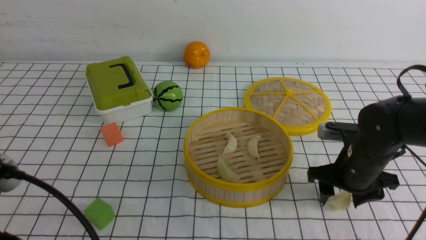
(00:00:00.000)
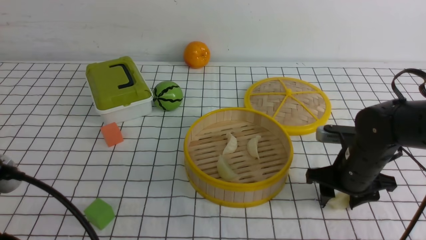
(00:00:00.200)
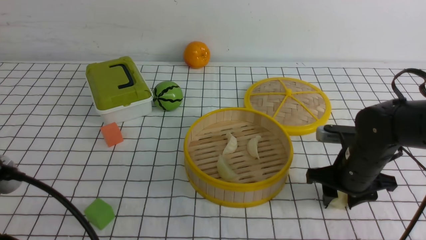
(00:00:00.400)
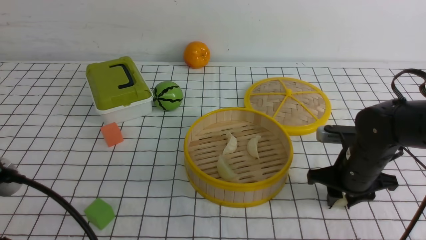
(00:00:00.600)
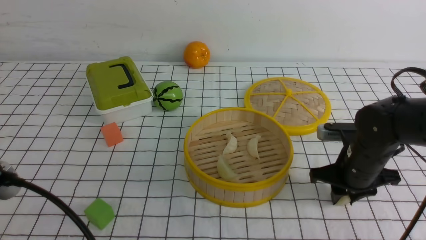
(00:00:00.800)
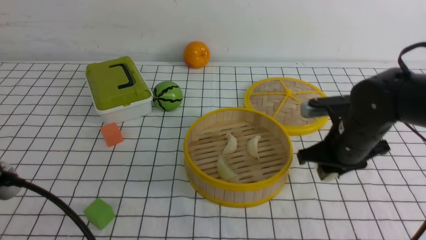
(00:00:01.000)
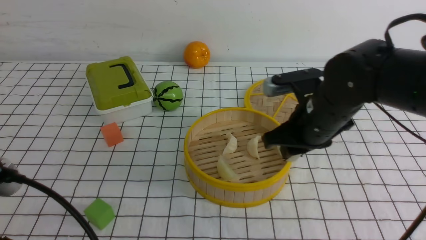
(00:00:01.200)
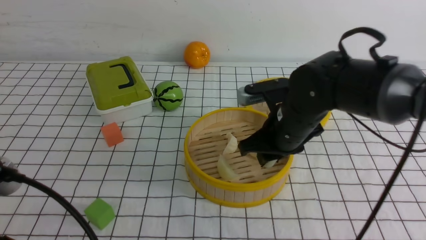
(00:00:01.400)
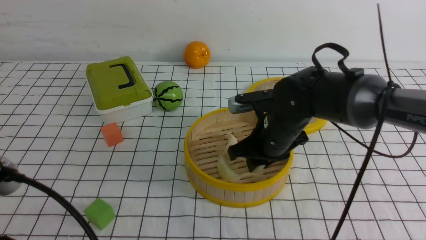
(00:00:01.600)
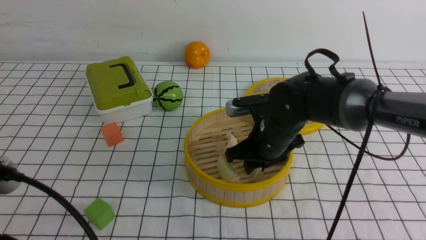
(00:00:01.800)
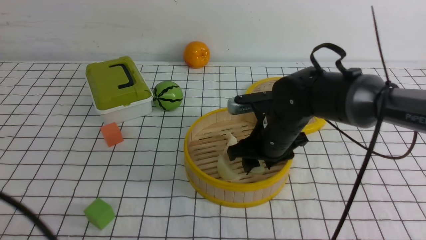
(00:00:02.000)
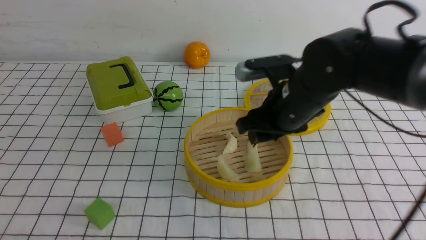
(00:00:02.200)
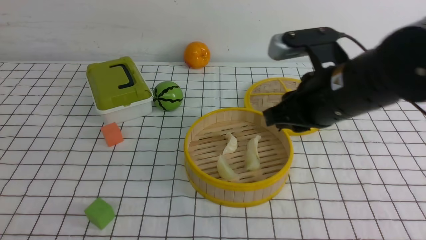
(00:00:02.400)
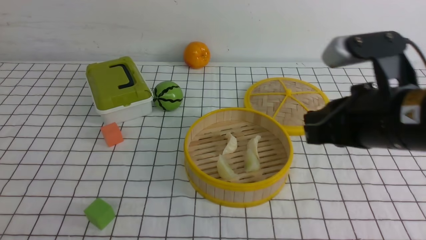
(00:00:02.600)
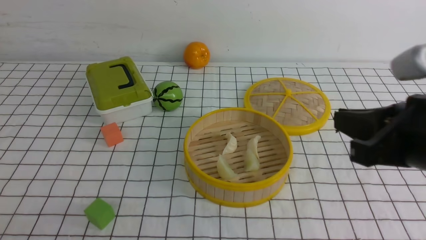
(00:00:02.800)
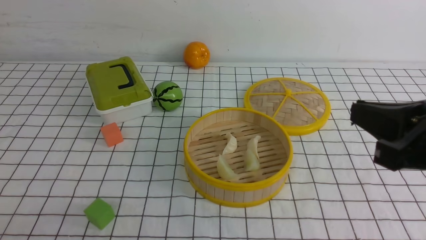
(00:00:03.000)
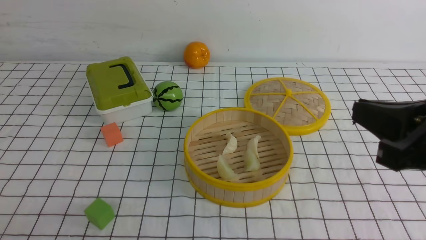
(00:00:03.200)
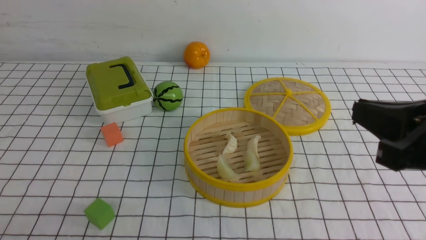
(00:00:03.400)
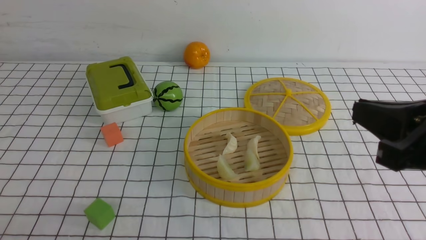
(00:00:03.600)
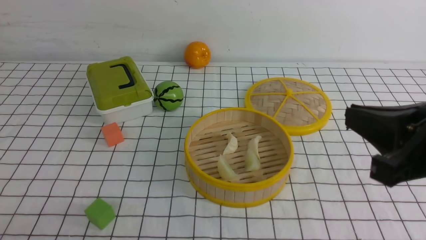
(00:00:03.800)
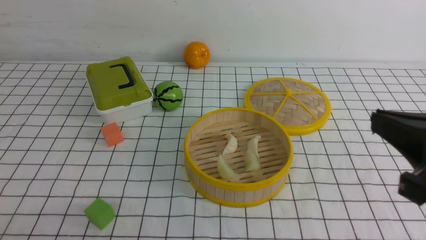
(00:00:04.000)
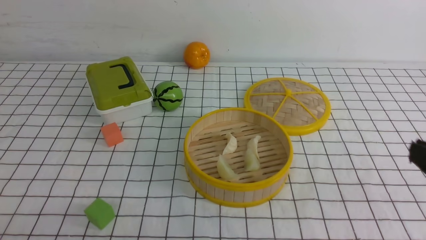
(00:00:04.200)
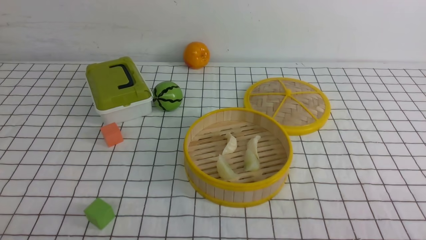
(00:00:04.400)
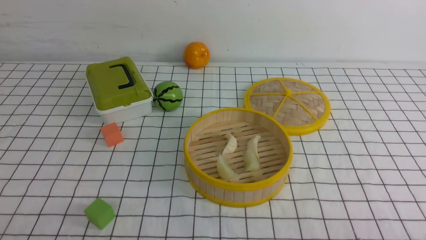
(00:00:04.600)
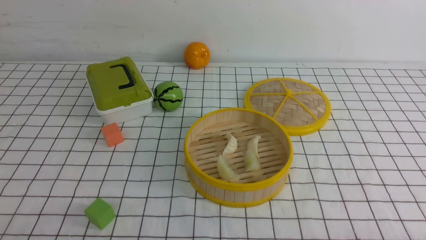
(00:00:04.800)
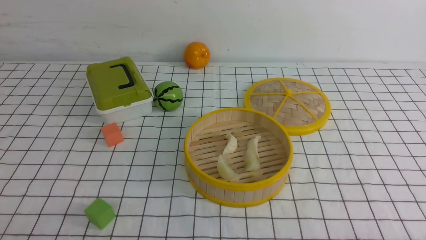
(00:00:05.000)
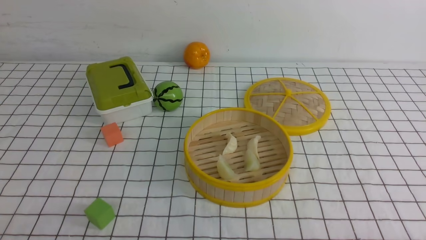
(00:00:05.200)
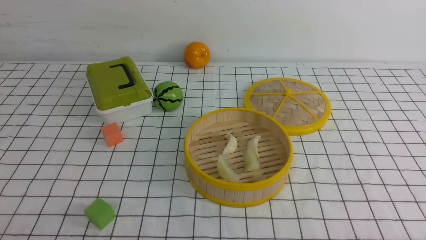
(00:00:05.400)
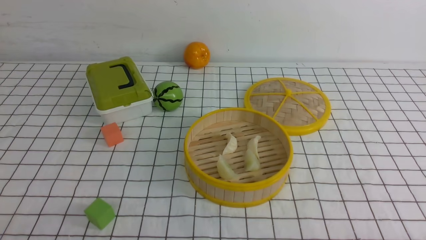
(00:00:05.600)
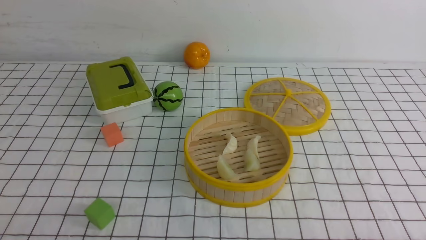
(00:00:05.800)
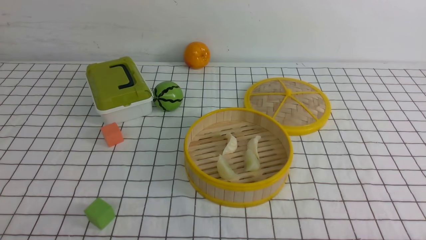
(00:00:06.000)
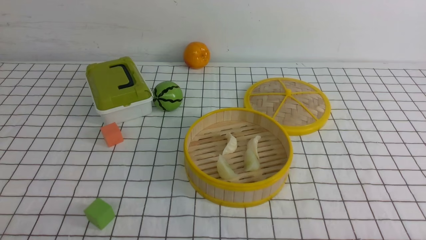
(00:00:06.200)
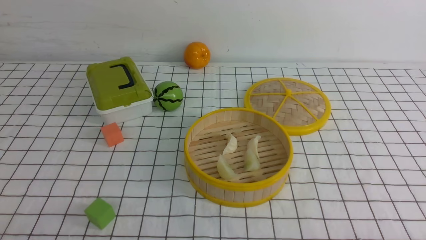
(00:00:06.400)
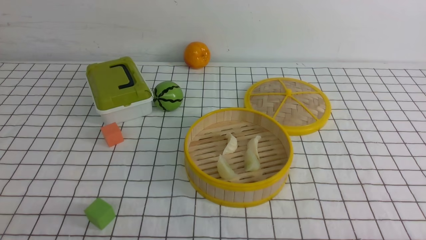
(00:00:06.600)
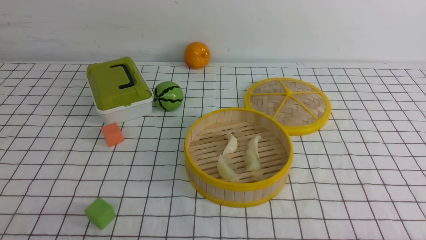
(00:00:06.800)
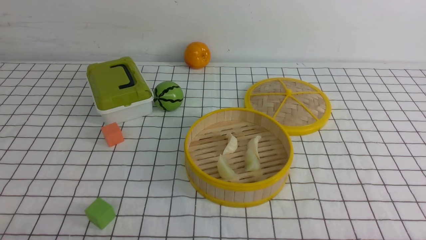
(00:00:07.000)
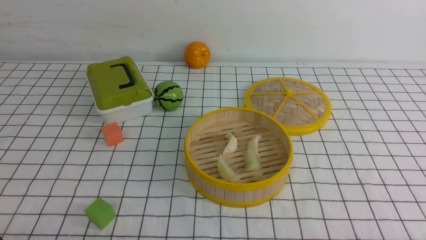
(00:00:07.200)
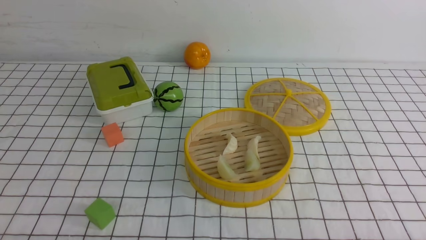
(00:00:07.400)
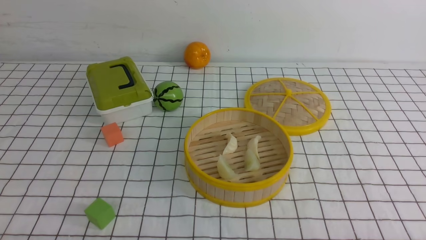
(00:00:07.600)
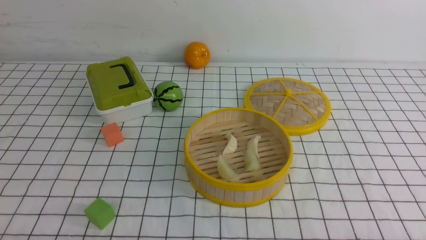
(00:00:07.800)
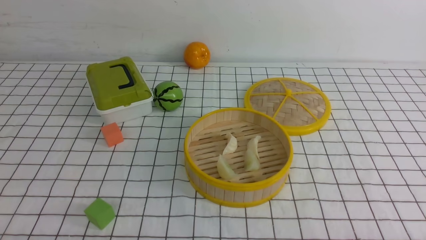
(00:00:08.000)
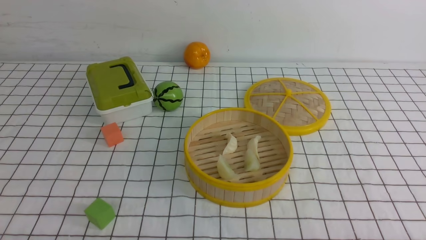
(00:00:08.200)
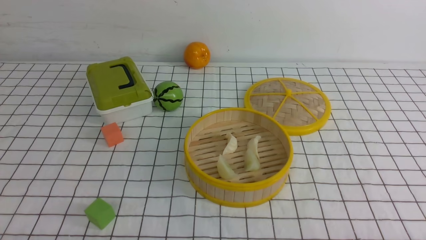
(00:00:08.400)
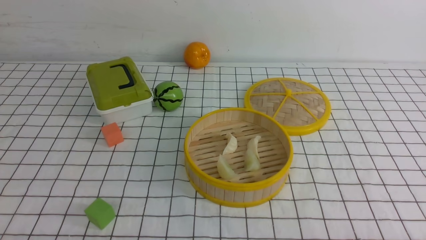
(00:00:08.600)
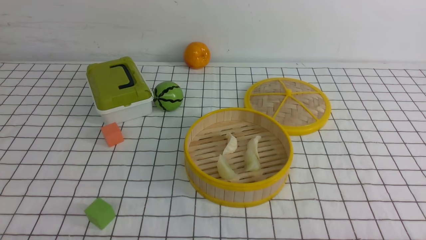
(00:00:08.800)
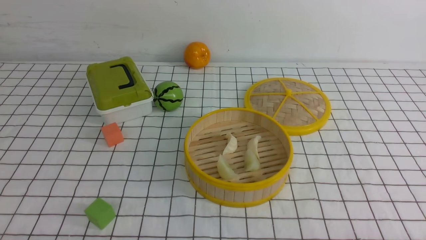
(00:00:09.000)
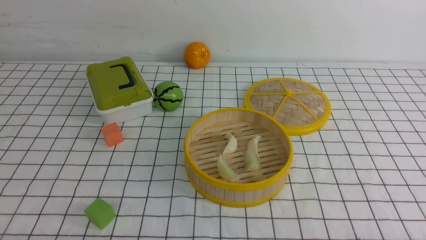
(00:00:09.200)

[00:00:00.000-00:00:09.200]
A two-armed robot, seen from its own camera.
Task of the whole recording: put the dumplings into the steamer on the table with the white tablecloth.
Step, 00:00:01.400 to 00:00:02.400: use the right arm to put the dumpling into the steamer.
00:00:00.000 to 00:00:01.600: The right gripper travels to the left by approximately 10 cm, and closes its fingers.
00:00:01.600 to 00:00:03.000: The left gripper shifts some 10 cm backward and to the left. The right gripper travels backward, upward and to the right by roughly 25 cm, and closes.
00:00:03.000 to 00:00:04.600: The right gripper is displaced downward, backward and to the right by some 20 cm.
00:00:07.600 to 00:00:09.200: Both grippers stay about where they are.
